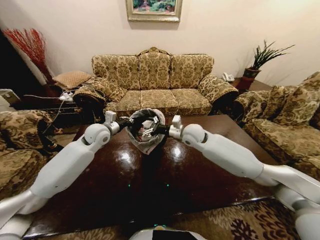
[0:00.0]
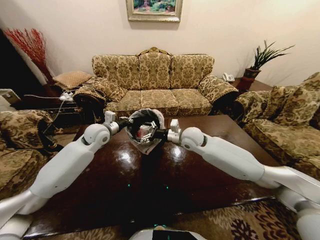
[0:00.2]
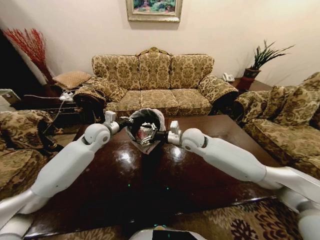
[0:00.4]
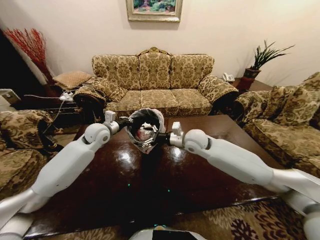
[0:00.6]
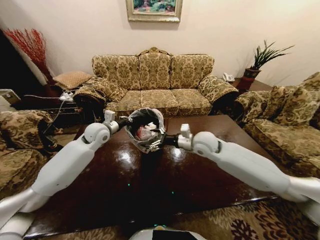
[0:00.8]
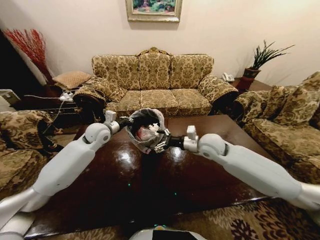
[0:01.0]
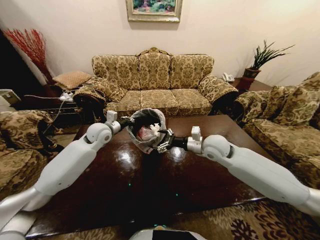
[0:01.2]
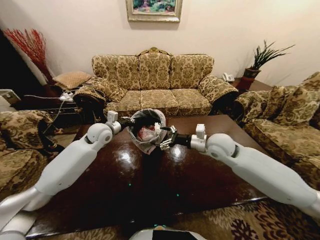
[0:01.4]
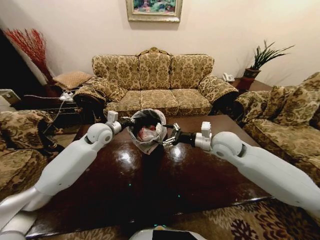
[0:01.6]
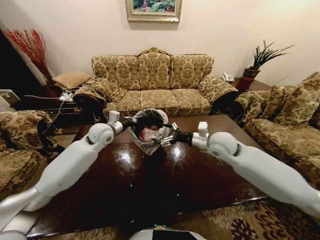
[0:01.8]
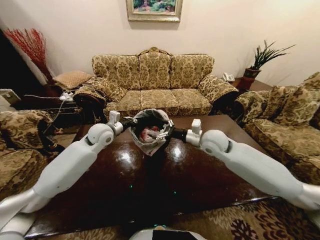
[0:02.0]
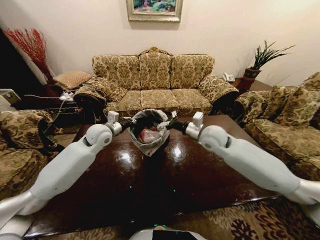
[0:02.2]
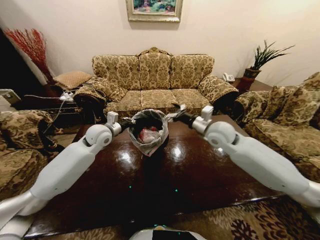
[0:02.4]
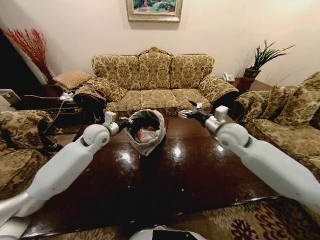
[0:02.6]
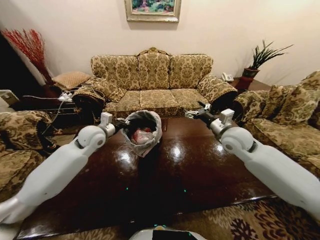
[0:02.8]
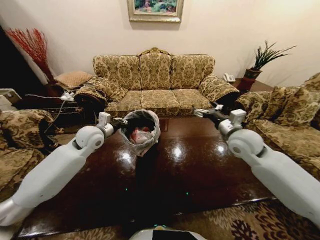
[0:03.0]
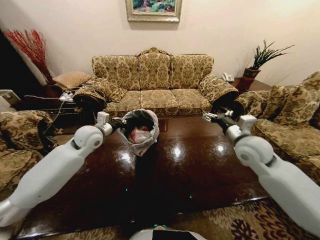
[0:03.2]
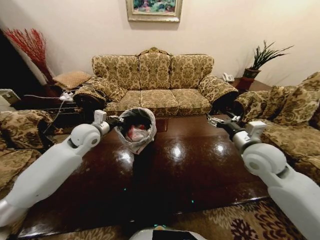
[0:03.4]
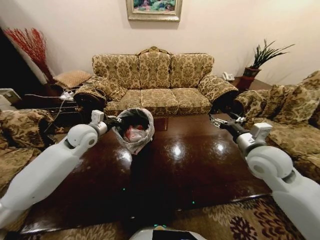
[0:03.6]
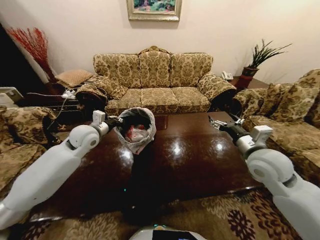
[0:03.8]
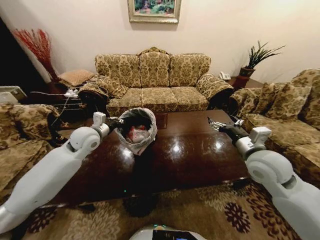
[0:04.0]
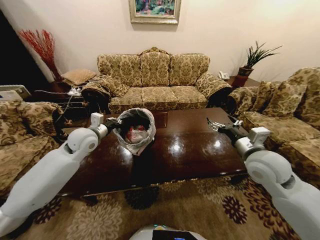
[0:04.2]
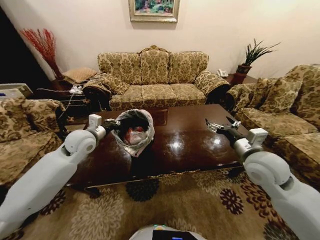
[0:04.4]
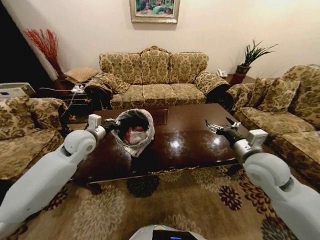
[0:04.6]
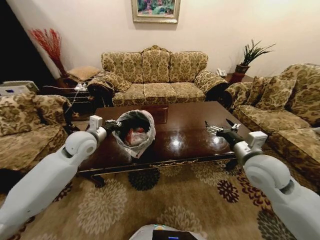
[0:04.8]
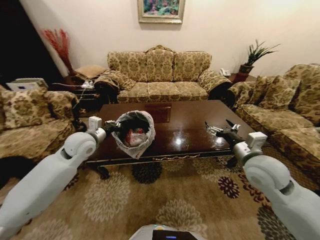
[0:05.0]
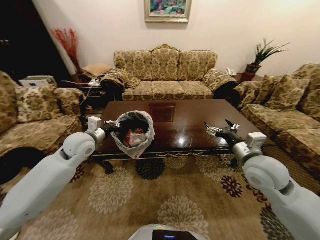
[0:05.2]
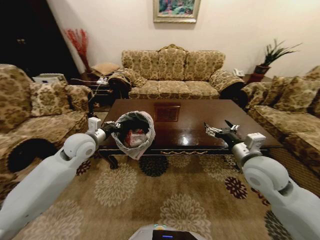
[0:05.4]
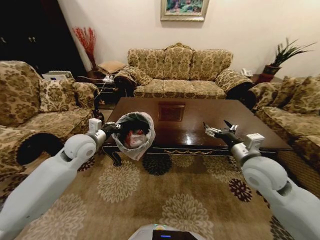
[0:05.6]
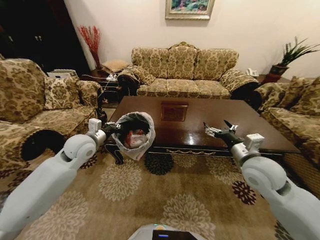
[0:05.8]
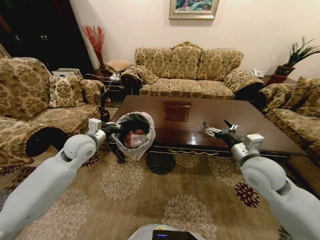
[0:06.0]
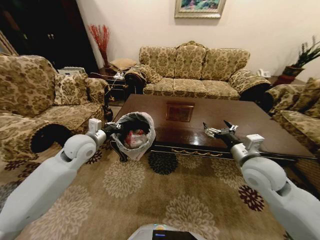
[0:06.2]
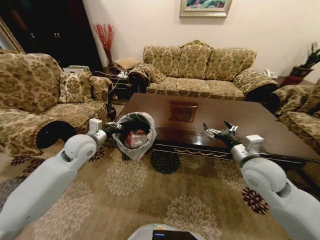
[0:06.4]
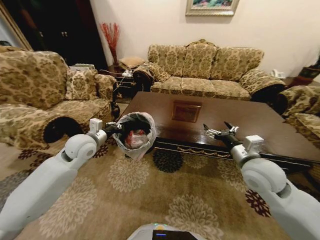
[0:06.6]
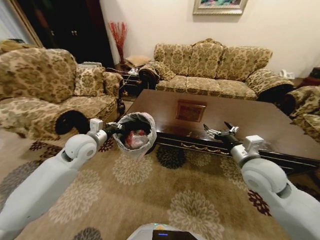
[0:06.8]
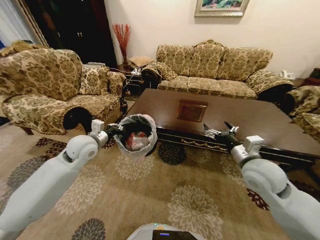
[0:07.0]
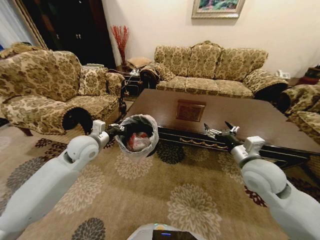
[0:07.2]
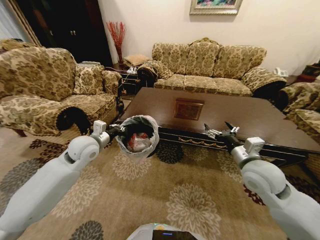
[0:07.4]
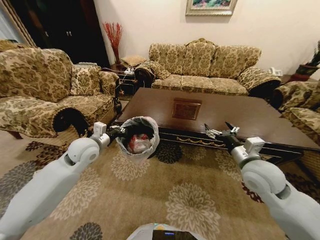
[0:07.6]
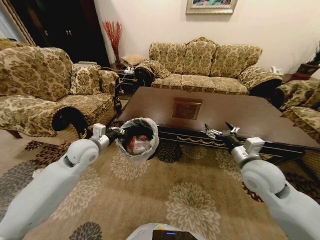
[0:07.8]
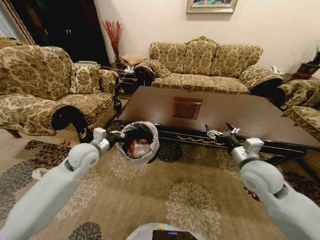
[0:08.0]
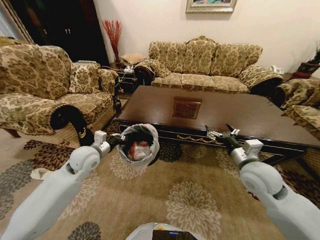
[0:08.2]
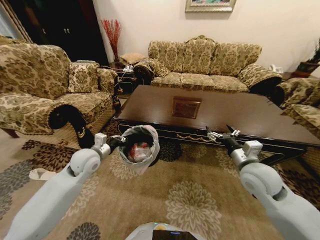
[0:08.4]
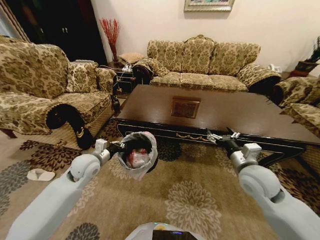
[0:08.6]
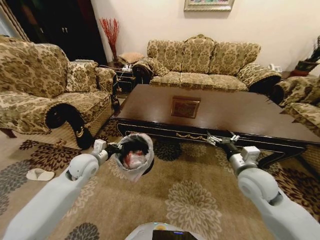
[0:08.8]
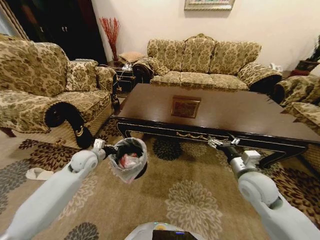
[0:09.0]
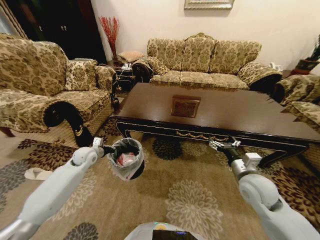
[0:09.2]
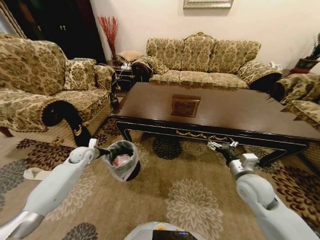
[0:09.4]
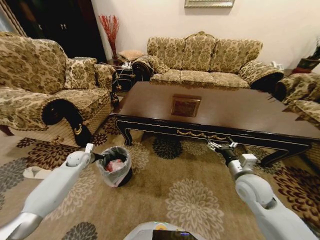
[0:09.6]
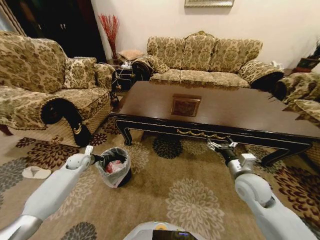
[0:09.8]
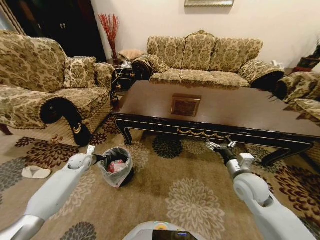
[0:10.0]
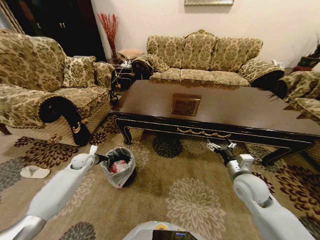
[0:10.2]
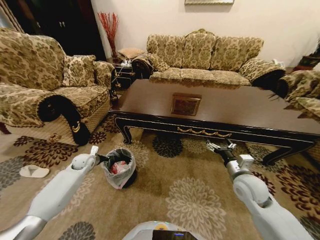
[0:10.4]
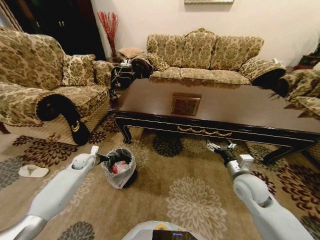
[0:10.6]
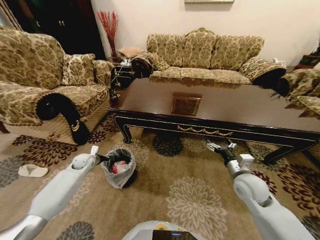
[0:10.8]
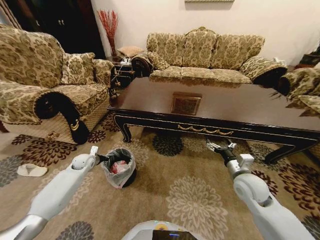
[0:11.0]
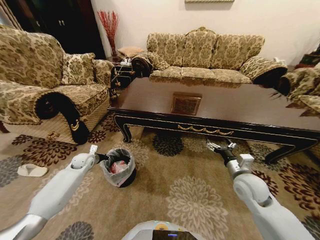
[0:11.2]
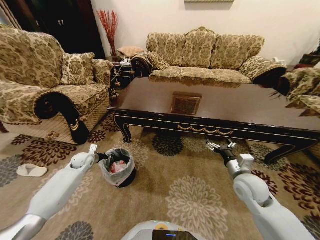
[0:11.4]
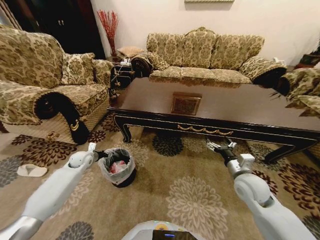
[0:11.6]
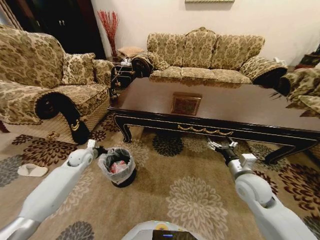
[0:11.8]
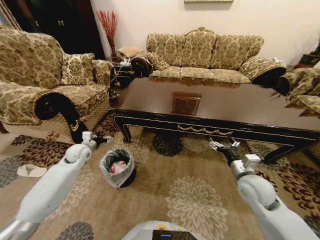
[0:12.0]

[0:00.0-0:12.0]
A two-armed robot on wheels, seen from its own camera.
Task of the whole recording: Move to the front of the table and place the trash on the table into the trash bin.
0:00.0 to 0:01.6: The right gripper shifts some 10 cm to the right and backward.
0:01.6 to 0:03.0: The right gripper travels to the right by some 5 cm.
0:03.0 to 0:04.4: The right gripper shifts approximately 10 cm backward.
0:07.6 to 0:09.0: The right gripper goes about 5 cm downward. The left gripper goes approximately 10 cm downward and to the left.
0:09.0 to 0:10.4: The left gripper shifts approximately 10 cm downward and to the left.
0:10.4 to 0:12.0: The left gripper is displaced upward by approximately 10 cm, and opens.

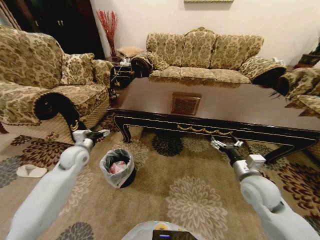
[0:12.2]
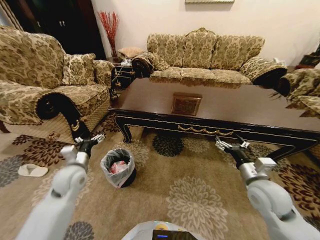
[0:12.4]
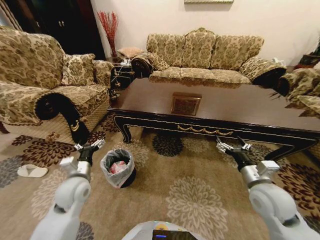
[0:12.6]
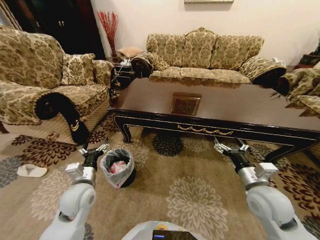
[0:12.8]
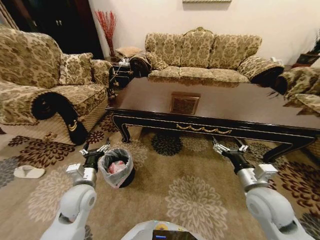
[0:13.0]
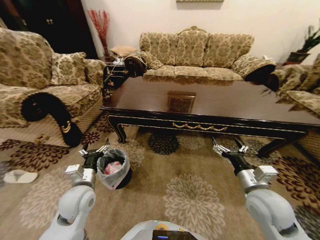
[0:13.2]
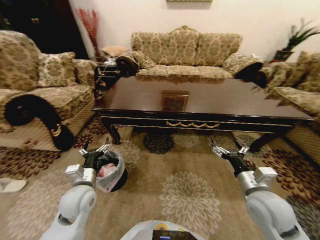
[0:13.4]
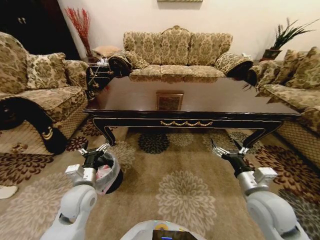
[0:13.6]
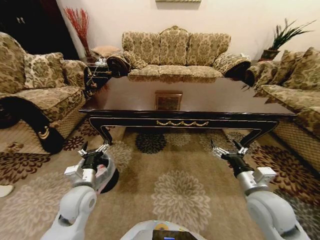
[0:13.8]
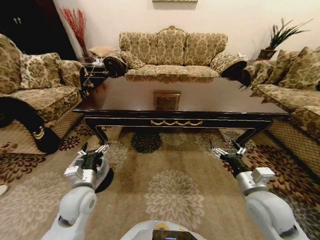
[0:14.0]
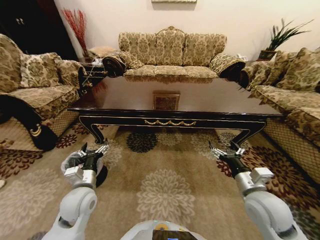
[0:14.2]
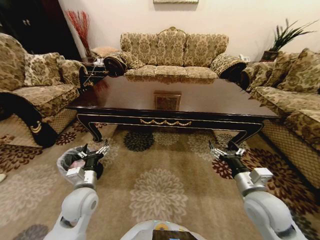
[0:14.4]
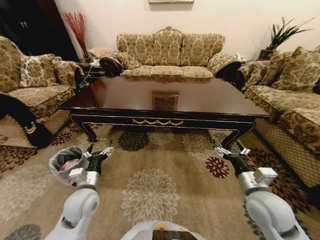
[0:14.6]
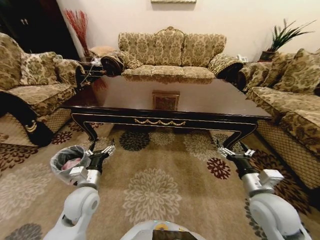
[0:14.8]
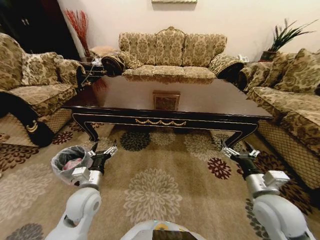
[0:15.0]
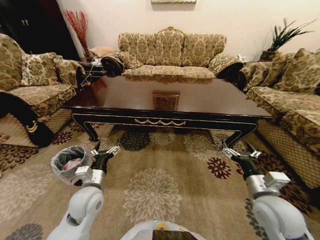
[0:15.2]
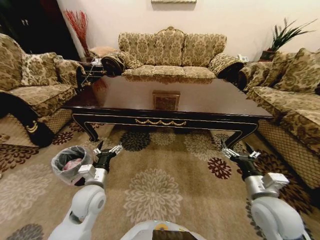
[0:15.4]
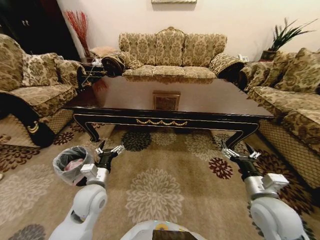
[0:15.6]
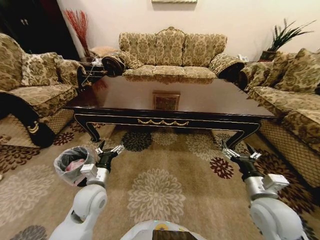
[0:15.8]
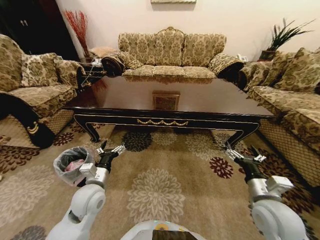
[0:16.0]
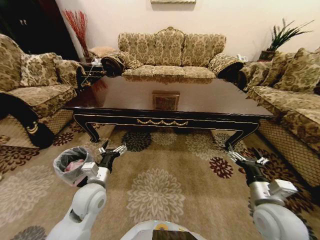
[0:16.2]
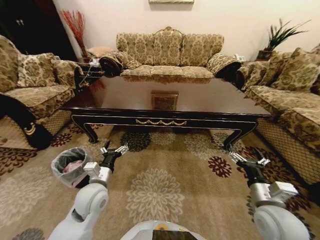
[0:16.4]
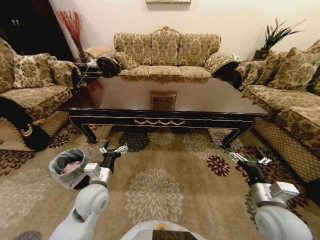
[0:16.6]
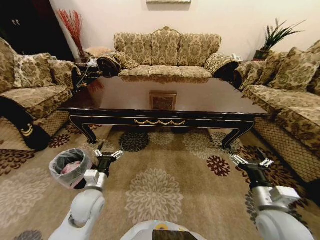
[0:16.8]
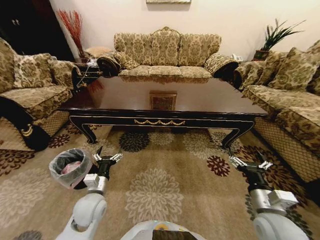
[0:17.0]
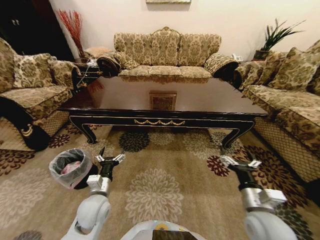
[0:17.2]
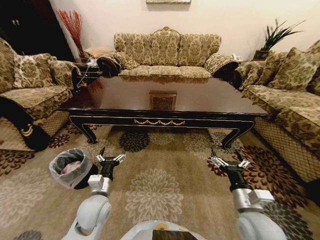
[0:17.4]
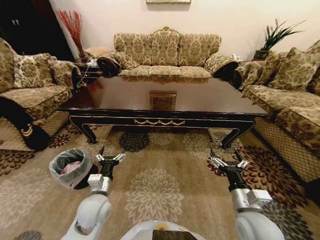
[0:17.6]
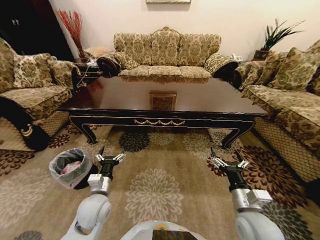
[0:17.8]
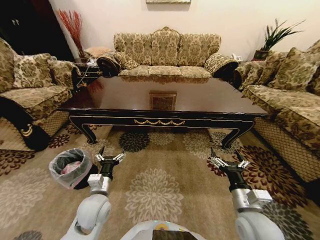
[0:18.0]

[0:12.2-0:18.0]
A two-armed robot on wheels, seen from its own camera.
Task of the whole recording: Move to the front of the table and place the trash on the table into the trash bin.
0:12.2 to 0:13.6: The right gripper is displaced backward by about 5 cm. Meanwhile the left gripper is displaced backward and to the right by about 20 cm.
0:16.6 to 0:18.0: The right gripper moves to the left, roughly 5 cm.
